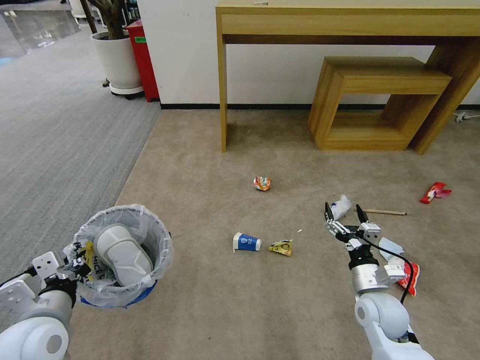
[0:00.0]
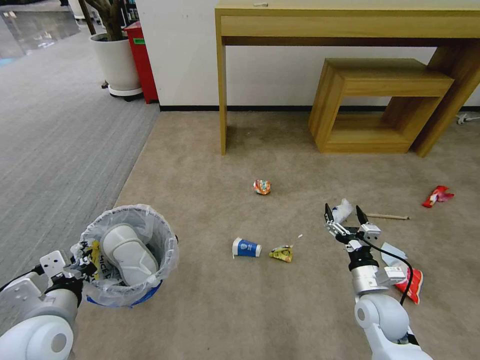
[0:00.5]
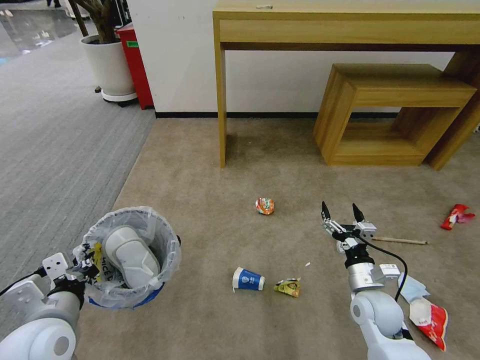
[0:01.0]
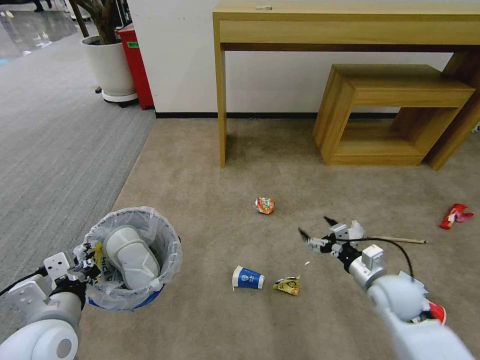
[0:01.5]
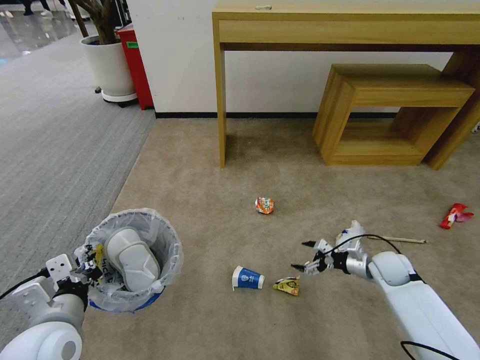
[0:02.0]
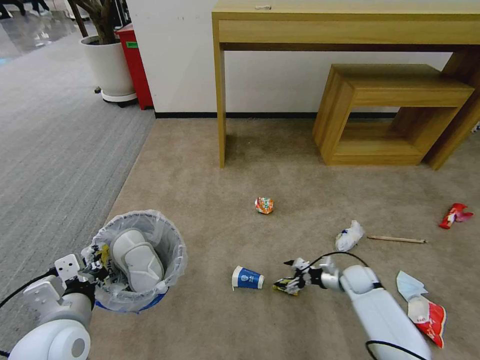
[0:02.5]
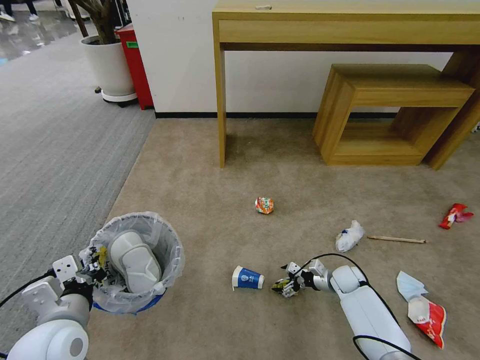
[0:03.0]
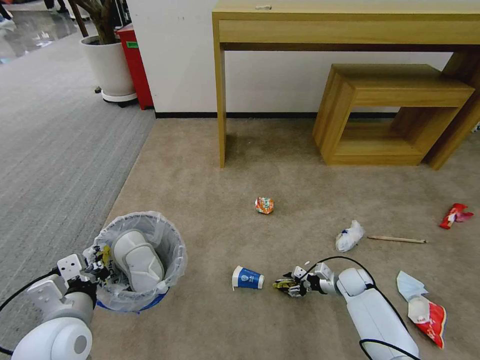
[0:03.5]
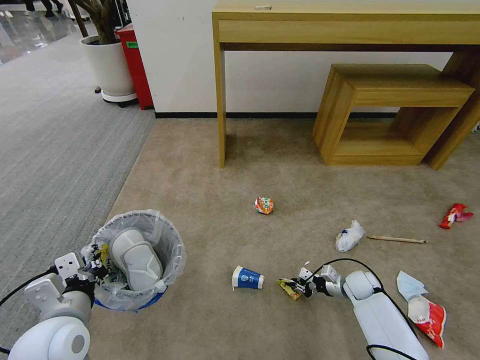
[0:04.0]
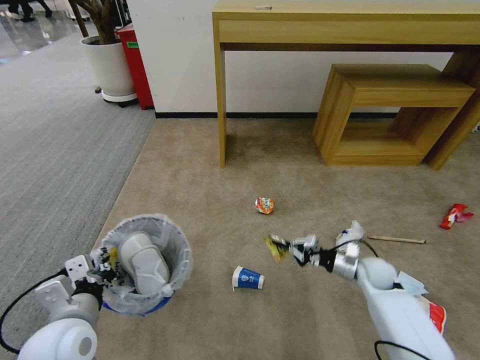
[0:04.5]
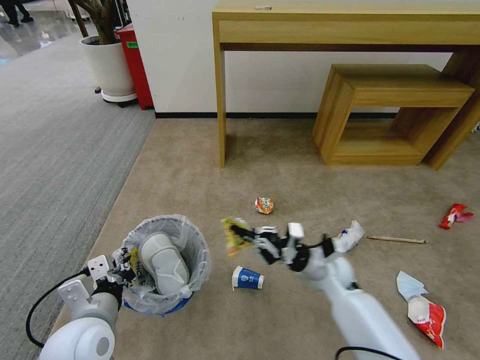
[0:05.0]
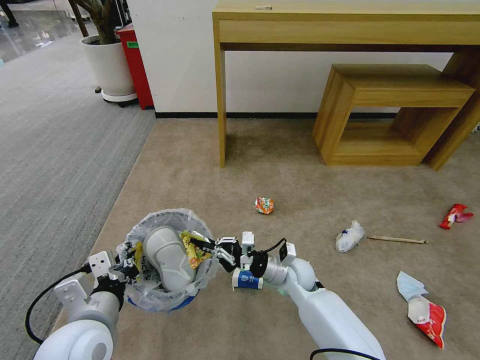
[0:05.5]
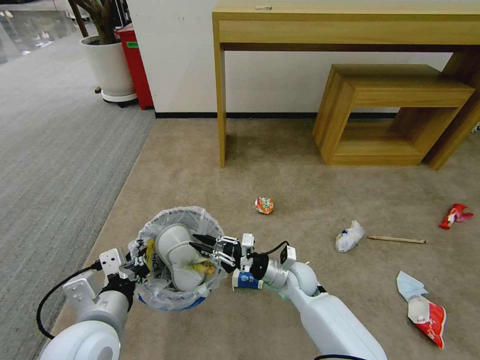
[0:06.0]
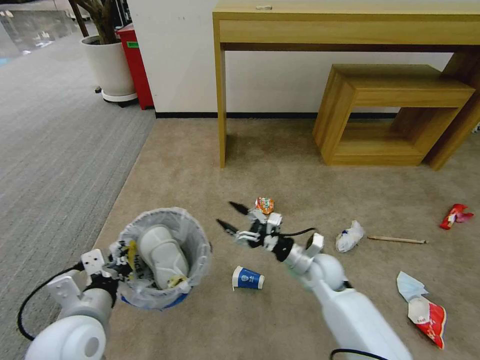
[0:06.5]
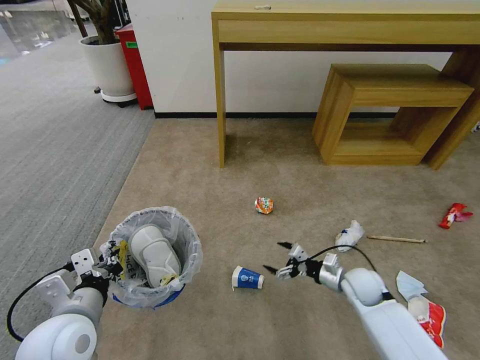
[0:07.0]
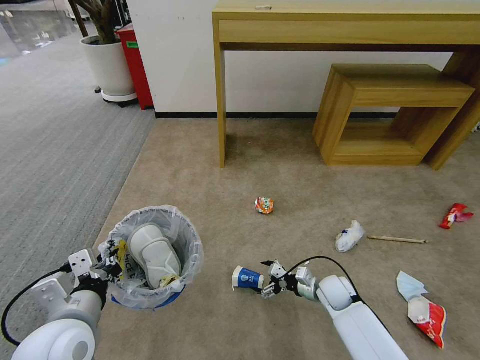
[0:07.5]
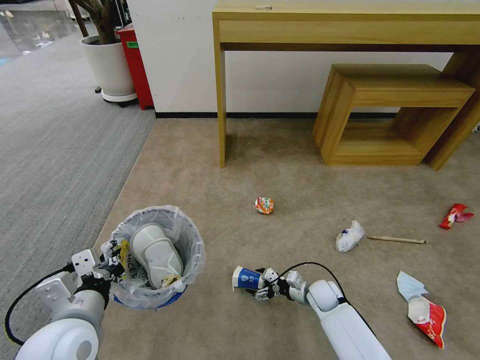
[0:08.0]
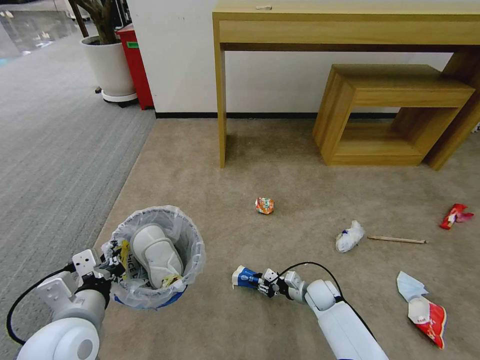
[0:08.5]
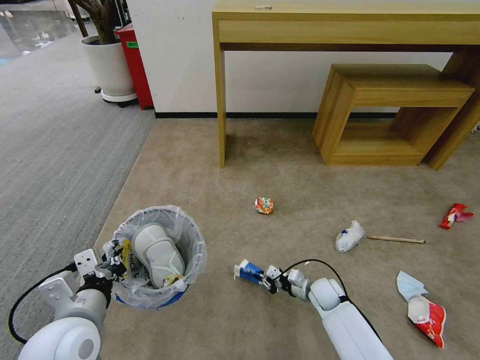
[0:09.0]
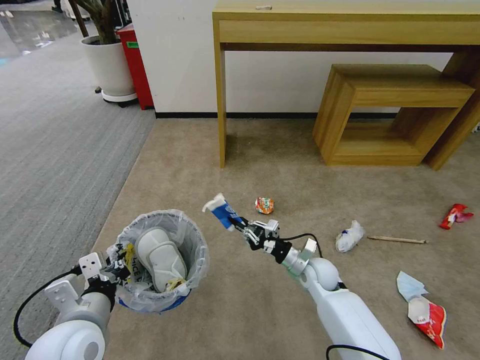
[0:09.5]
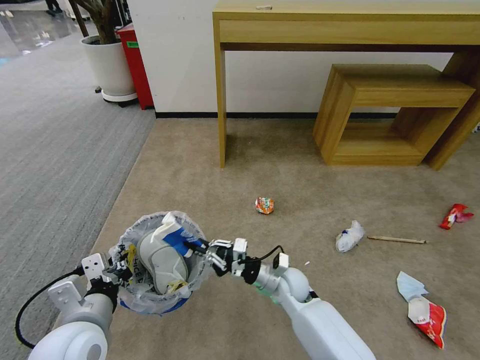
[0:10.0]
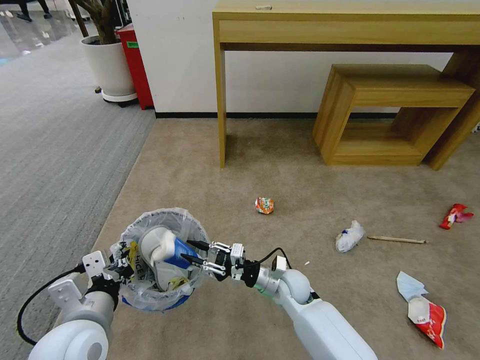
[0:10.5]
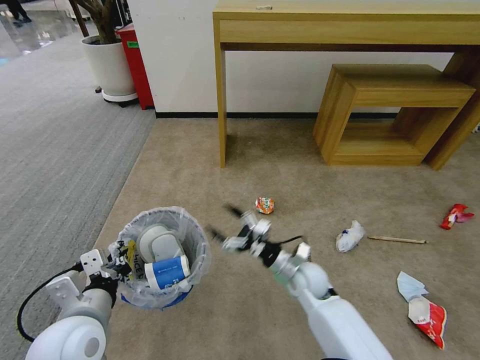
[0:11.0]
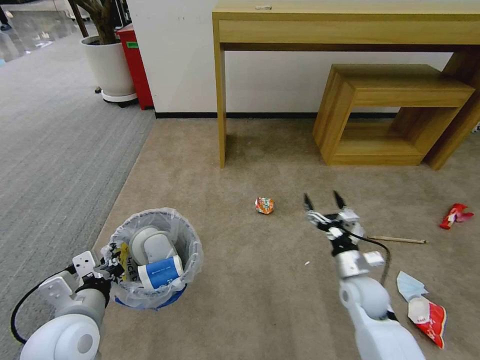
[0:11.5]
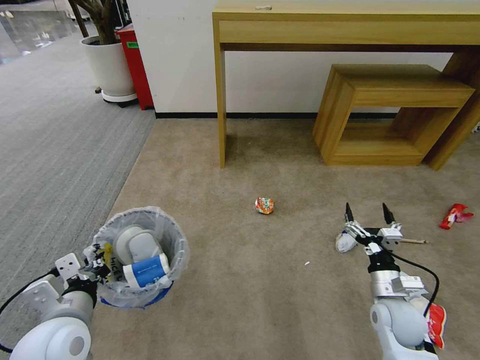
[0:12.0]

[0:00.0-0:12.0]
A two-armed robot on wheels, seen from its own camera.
Task of the whole recording: Pick up the trash bin and place the garbage on the floor into it.
0:00.0 to 0:02.0: The right gripper goes approximately 15 cm forward and to the right.
0:02.0 to 0:04.0: The right gripper travels downward by about 10 cm, and closes up.
0:04.0 to 0:06.0: The left gripper travels to the right by about 5 cm, while the right gripper heads to the left and upward, covering some 25 cm.
0:06.0 to 0:08.0: The right gripper travels downward and to the right by some 15 cm, and opens.
0:08.0 to 0:10.0: The right gripper is displaced to the left and upward by some 15 cm, and closes up.
0:10.0 to 0:12.0: The right gripper heads to the right, covering roughly 20 cm, and opens up.

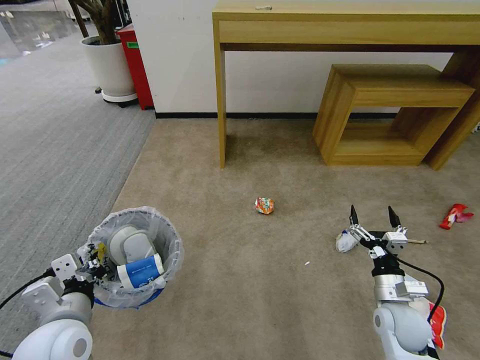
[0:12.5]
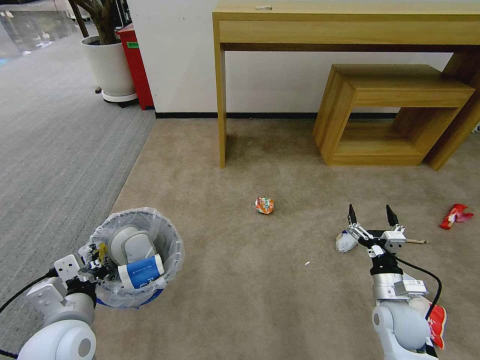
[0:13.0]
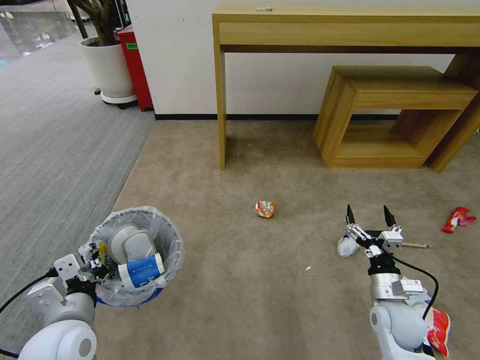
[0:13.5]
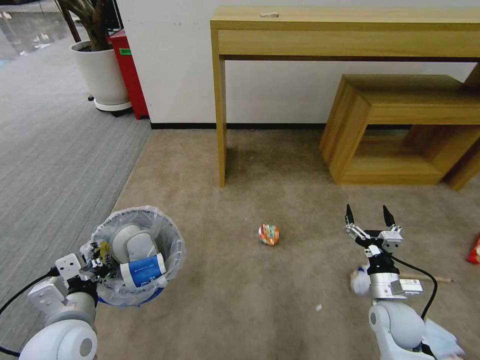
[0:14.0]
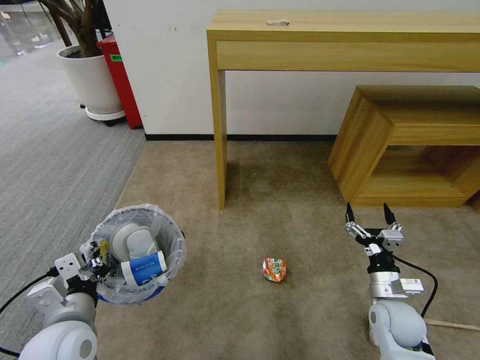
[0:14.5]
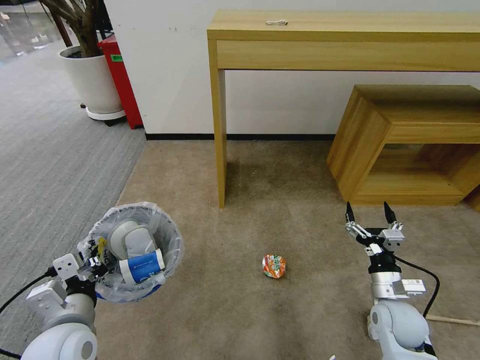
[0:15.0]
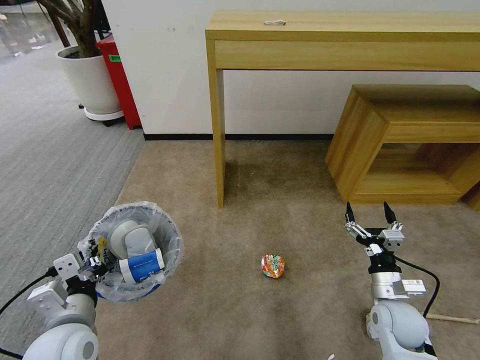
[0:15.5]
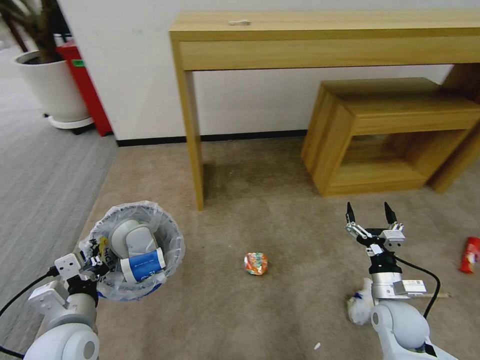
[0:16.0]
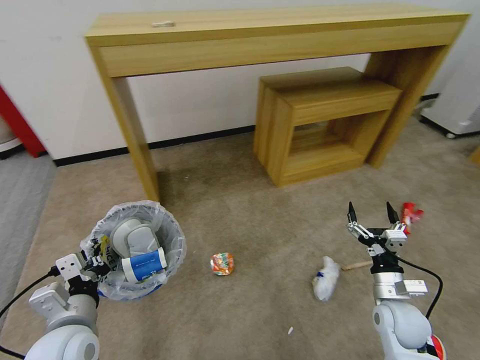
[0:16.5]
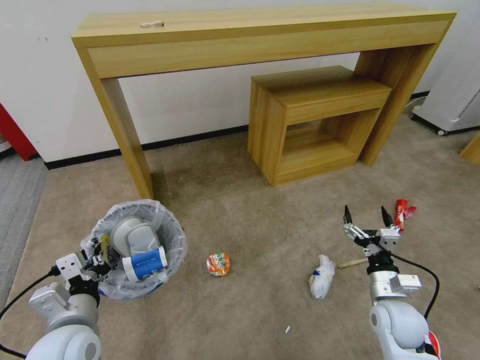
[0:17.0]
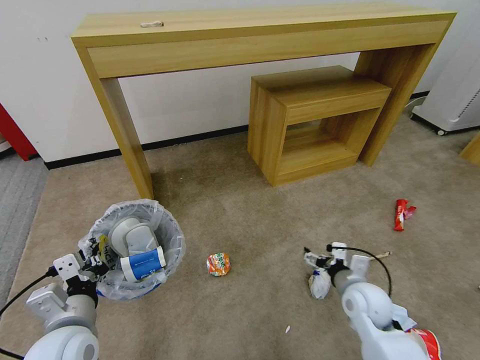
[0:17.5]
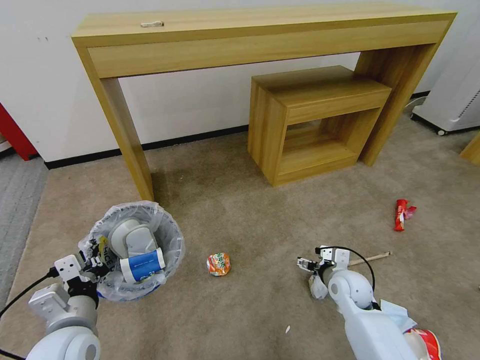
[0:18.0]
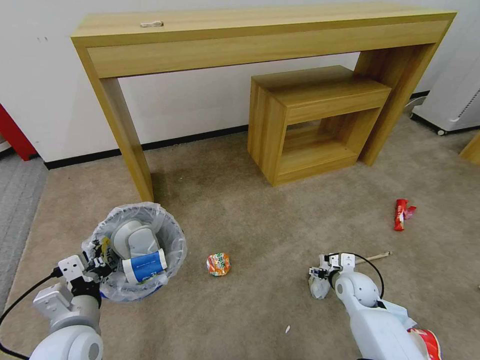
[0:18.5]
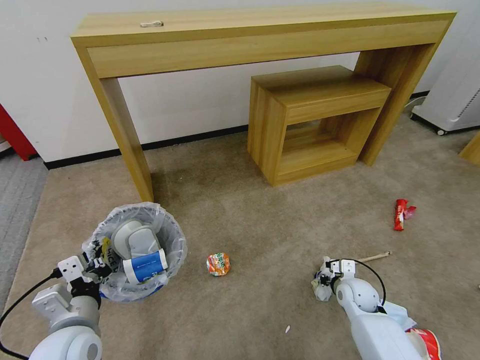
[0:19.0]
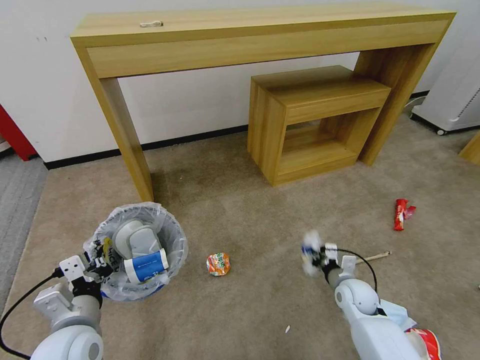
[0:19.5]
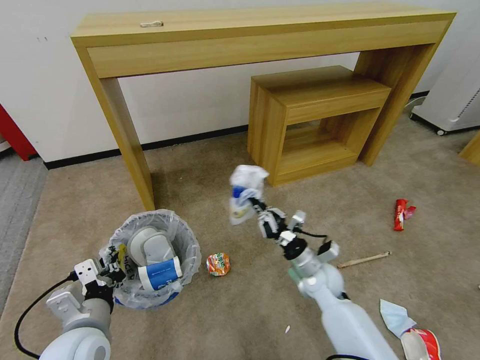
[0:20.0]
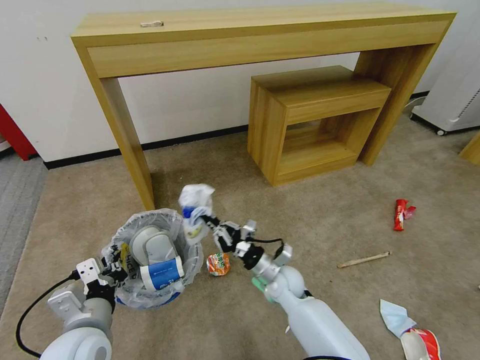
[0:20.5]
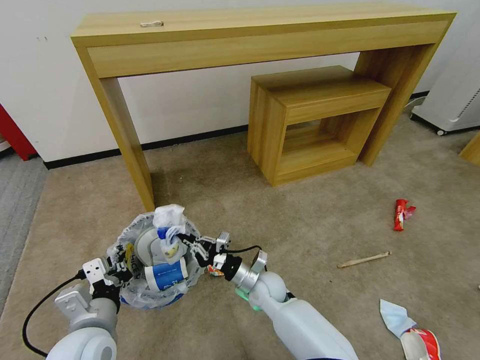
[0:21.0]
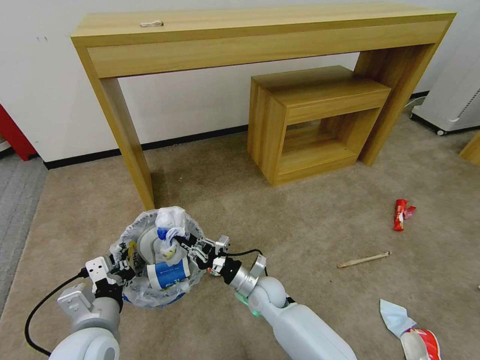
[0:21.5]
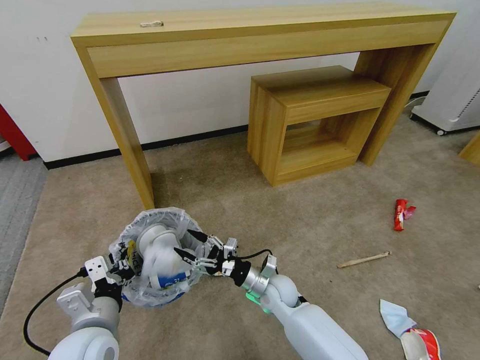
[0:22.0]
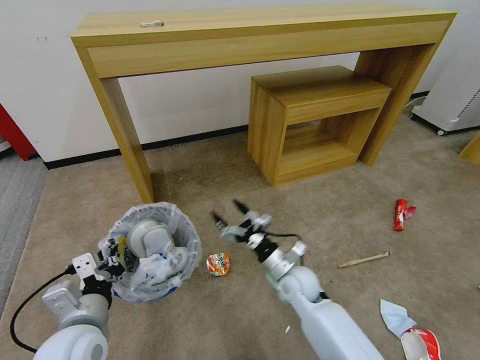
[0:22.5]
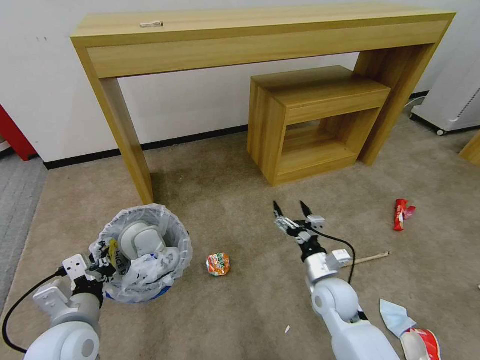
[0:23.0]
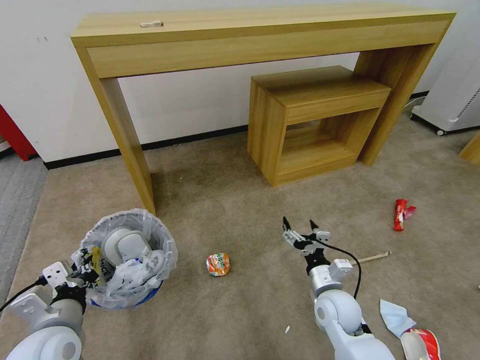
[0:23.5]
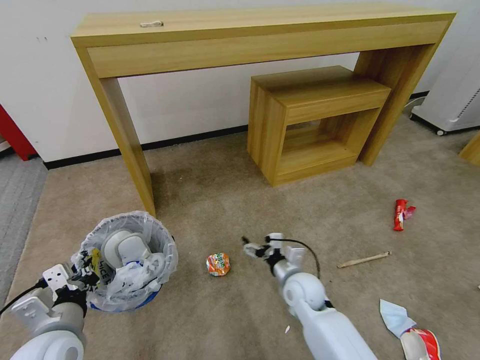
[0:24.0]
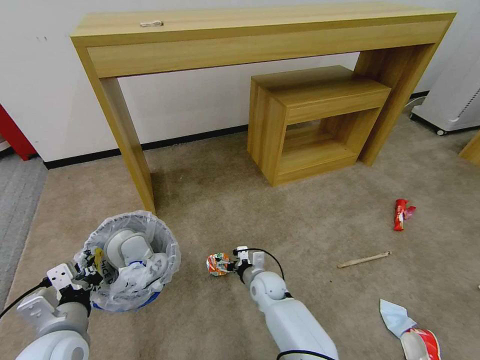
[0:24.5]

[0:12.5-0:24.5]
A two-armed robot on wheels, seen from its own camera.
Task of the whole recording: Pick up the trash bin and place the garbage on the floor into it.
0:16.5 to 0:18.5: The right gripper goes approximately 10 cm forward and downward.
0:18.5 to 0:20.5: The right gripper moves to the left, some 20 cm, and closes its fingers.
0:20.5 to 0:22.5: The right gripper opens its fingers.
0:22.5 to 0:24.5: The right gripper shifts some 10 cm downward and to the left.

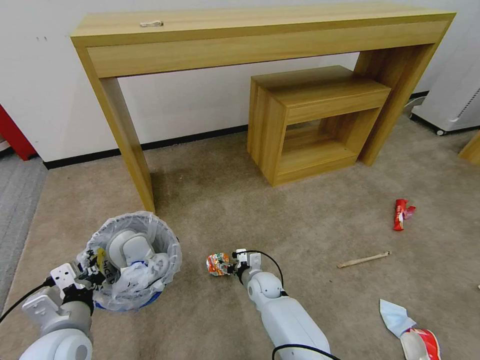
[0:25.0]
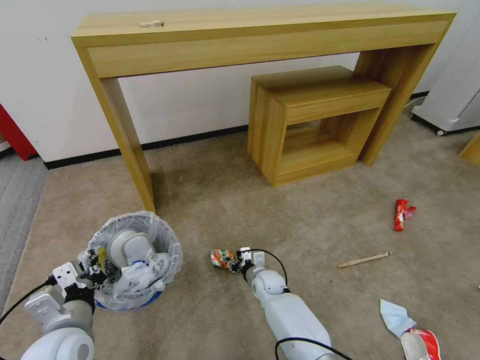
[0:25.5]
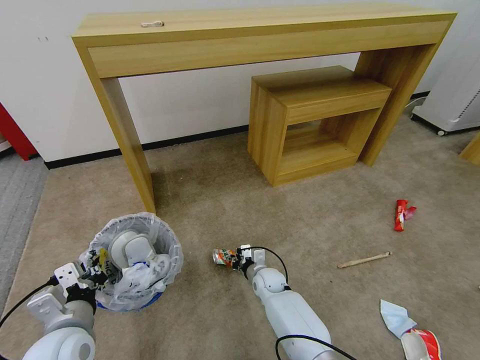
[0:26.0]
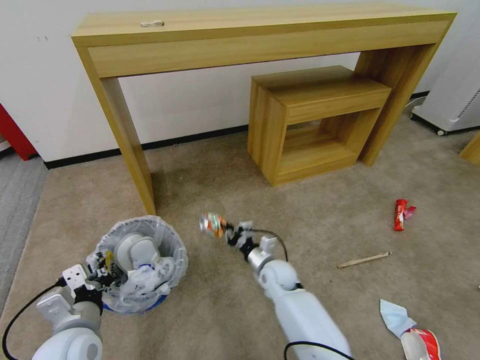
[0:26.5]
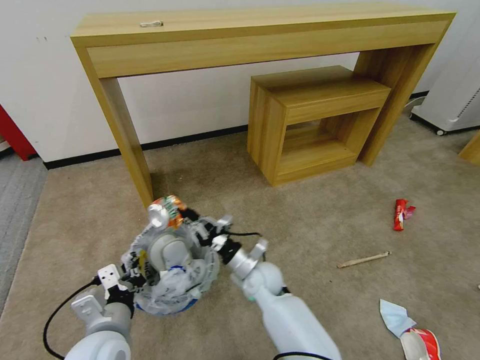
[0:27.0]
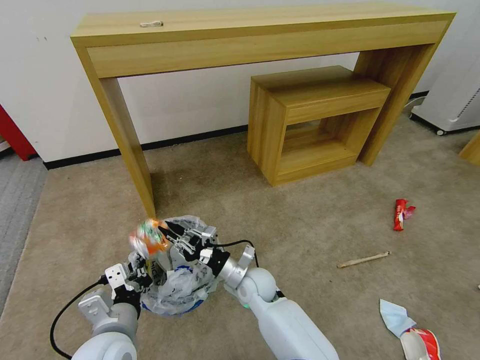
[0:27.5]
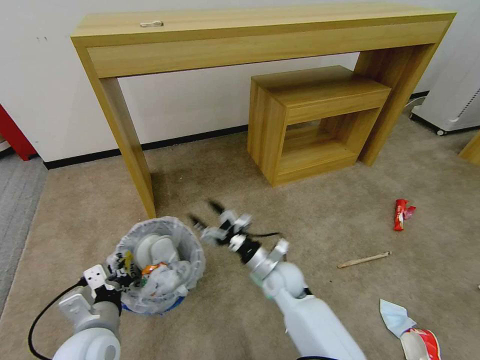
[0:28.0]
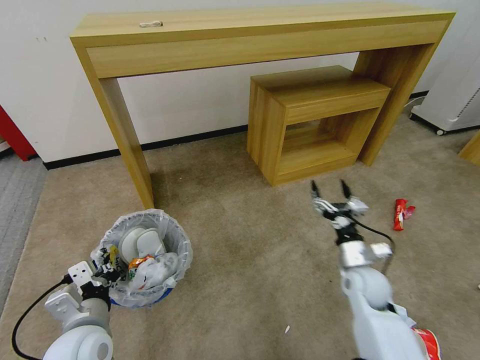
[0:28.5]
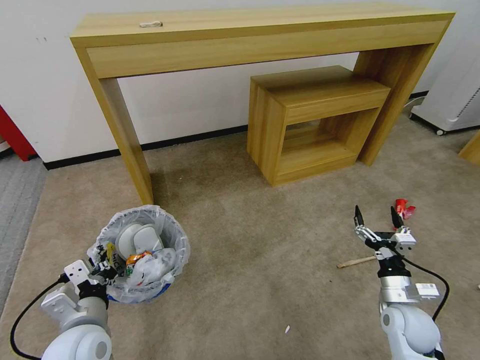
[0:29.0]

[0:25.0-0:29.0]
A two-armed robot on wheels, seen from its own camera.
Task of the whole recording: Pick up the trash bin and place the garbage on the floor into it.
0:25.0 to 0:27.0: The right gripper travels upward by some 10 cm, and closes; the left gripper heads to the right, covering roughly 5 cm.
0:27.0 to 0:29.0: The right gripper is displaced to the right by roughly 30 cm, and opens its fingers.
